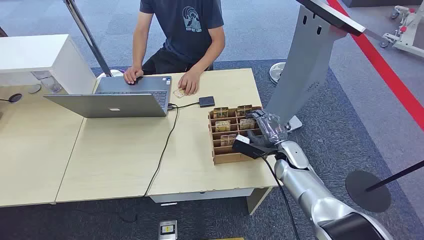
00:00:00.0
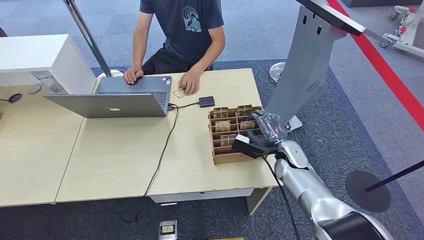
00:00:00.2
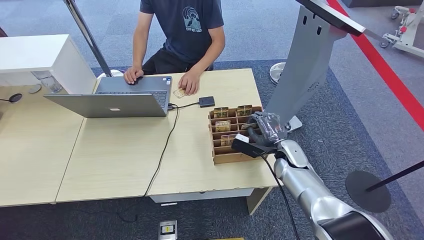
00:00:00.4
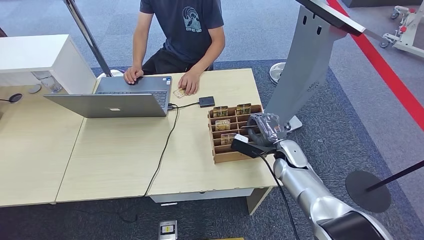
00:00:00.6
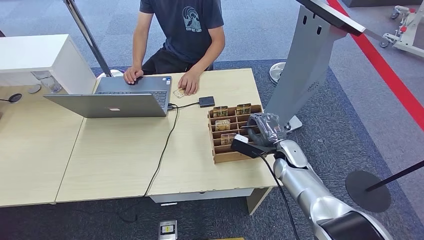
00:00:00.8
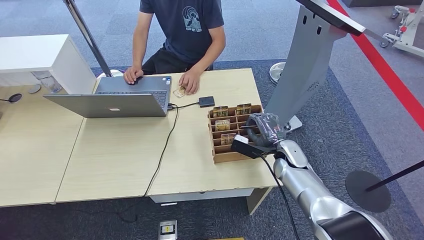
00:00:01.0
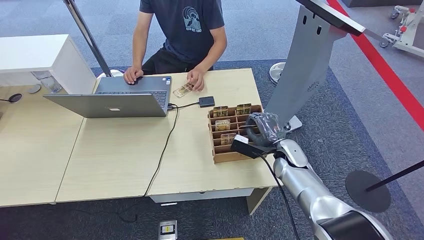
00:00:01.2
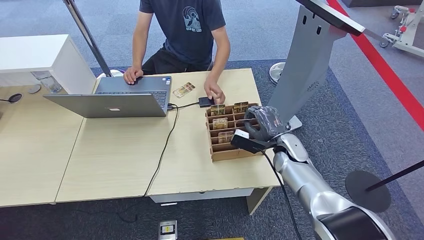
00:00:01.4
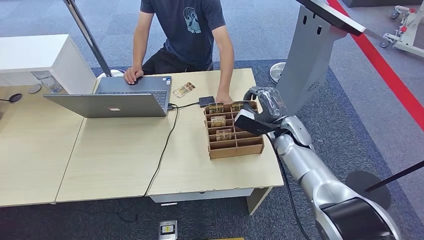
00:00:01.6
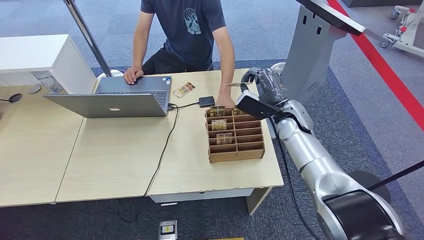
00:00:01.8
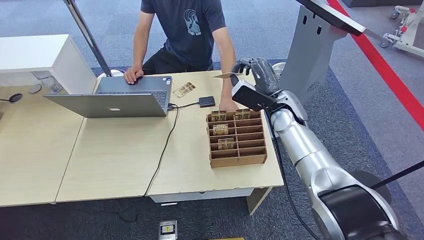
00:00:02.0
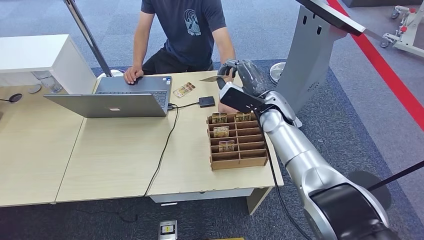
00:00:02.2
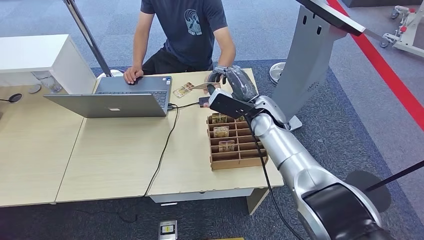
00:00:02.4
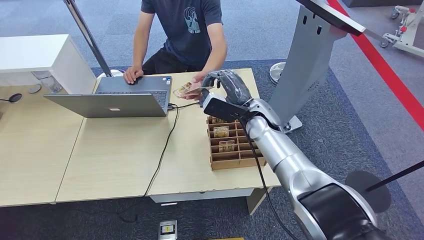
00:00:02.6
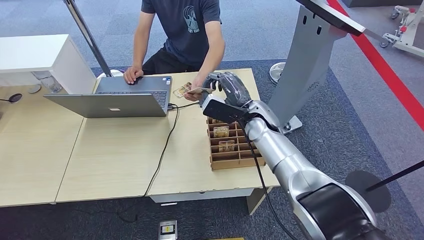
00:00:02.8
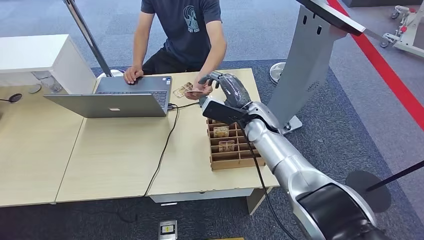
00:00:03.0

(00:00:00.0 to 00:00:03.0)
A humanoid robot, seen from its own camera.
Step, 00:00:00.0 - 00:00:01.6: Pick up the key card from the card box.
Step, 00:00:01.8 - 00:00:02.8: Hand the key card to the target.
00:00:01.6 - 00:00:03.0: The right hand is displaced to the left and upward by roughly 10 cm.

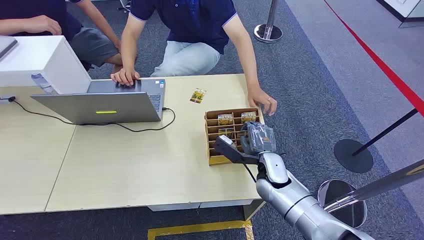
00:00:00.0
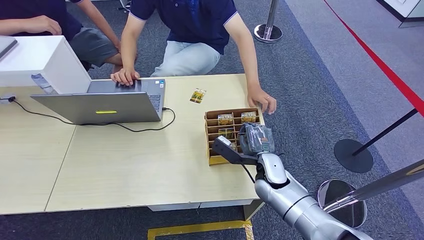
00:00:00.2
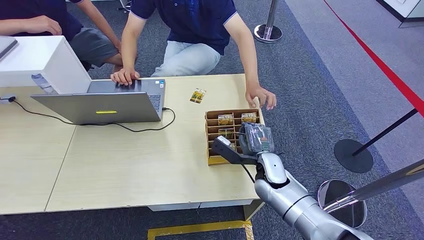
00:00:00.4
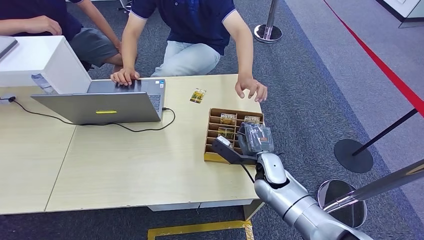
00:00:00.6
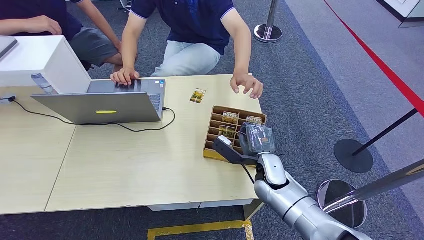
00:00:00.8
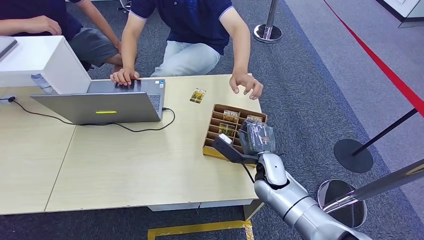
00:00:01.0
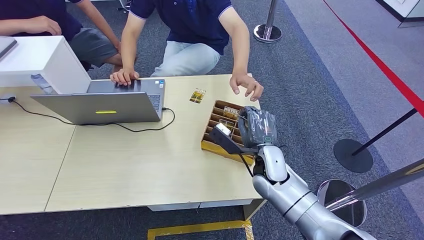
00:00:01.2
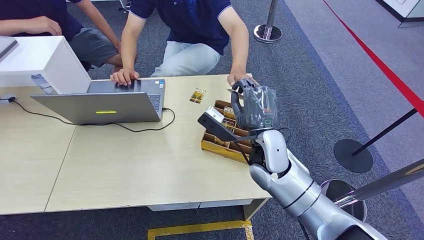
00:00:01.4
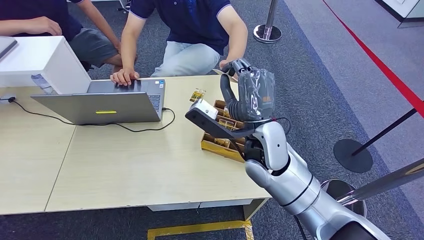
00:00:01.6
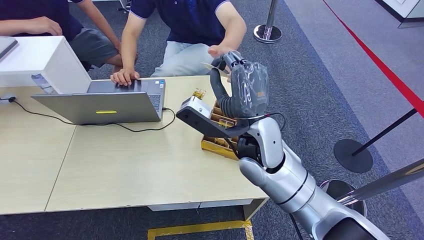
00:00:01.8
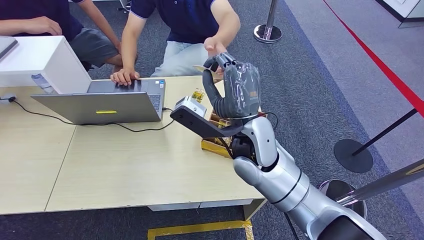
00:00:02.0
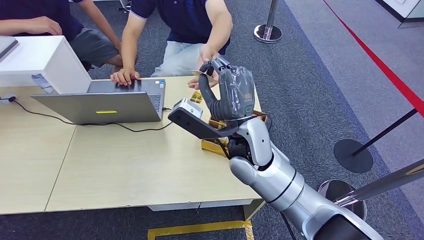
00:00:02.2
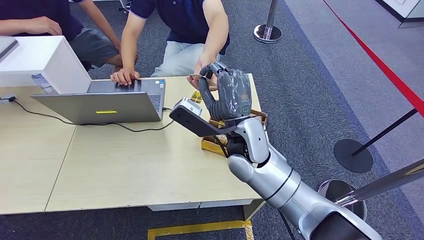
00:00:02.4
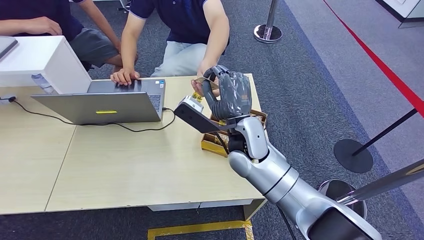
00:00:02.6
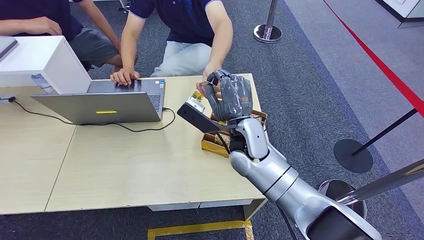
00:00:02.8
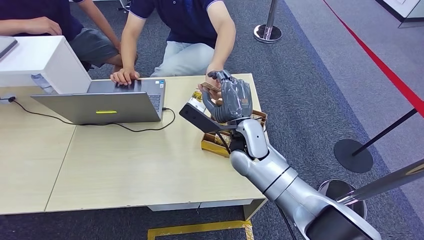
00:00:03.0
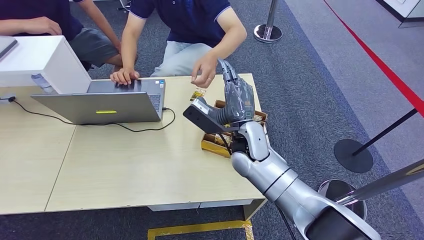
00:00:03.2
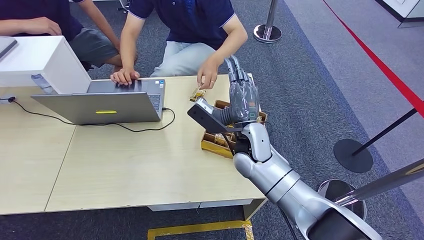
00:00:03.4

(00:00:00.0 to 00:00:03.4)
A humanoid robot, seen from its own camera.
Step, 00:00:00.0 - 00:00:01.4: Pick up the key card from the card box.
Step, 00:00:01.6 - 00:00:03.4: Hand the key card to the target.
00:00:01.6 - 00:00:03.4: The right hand travels downward by about 5 cm.

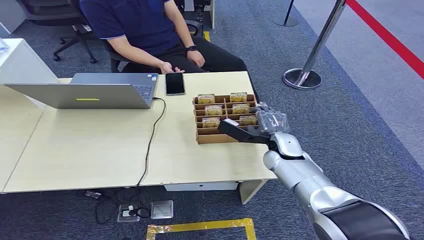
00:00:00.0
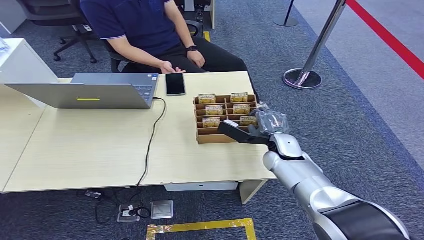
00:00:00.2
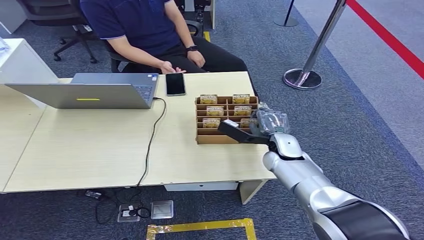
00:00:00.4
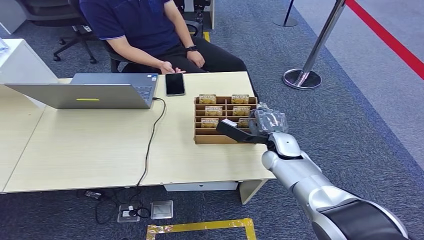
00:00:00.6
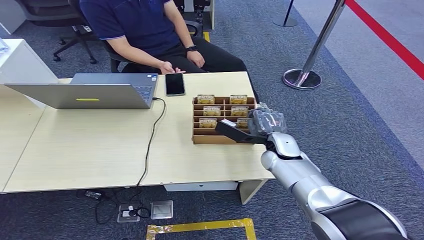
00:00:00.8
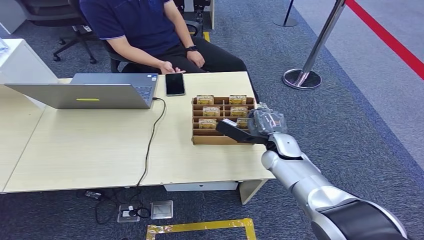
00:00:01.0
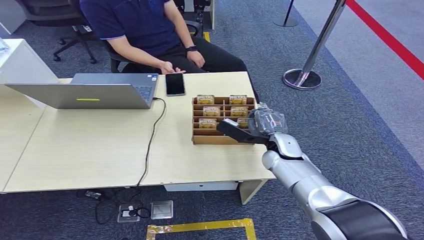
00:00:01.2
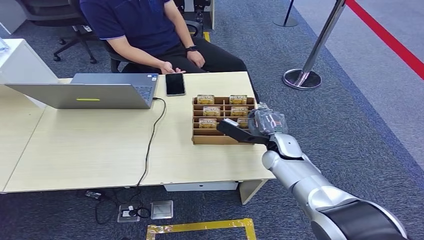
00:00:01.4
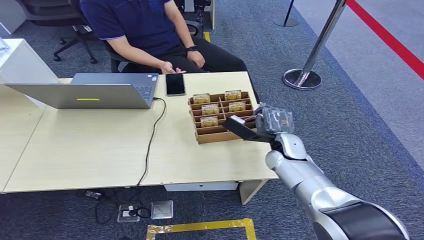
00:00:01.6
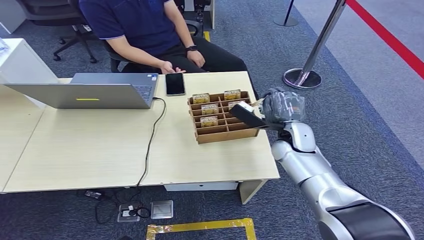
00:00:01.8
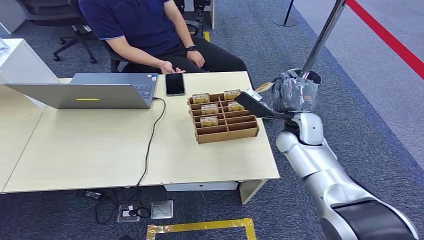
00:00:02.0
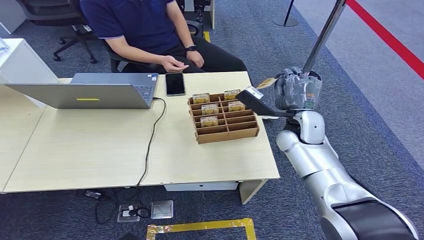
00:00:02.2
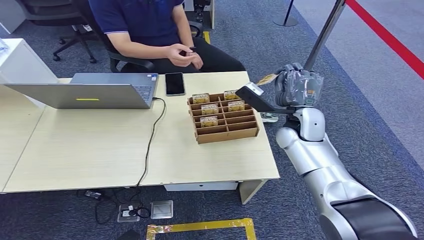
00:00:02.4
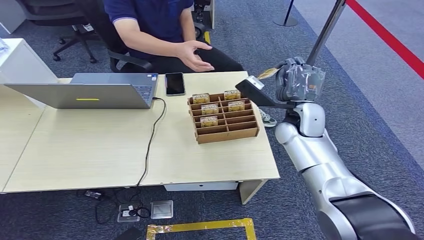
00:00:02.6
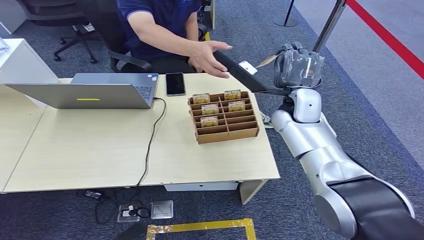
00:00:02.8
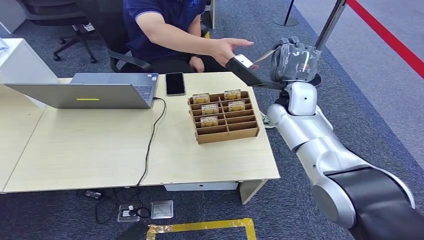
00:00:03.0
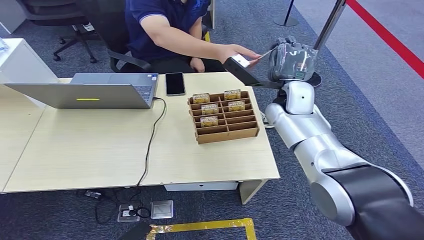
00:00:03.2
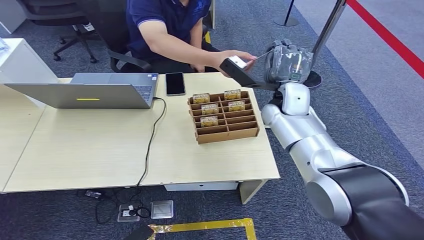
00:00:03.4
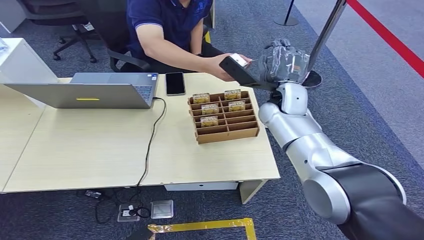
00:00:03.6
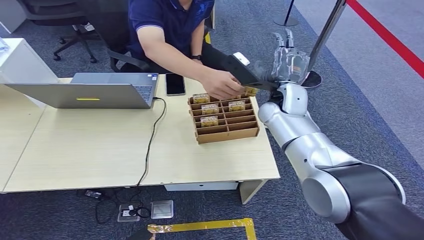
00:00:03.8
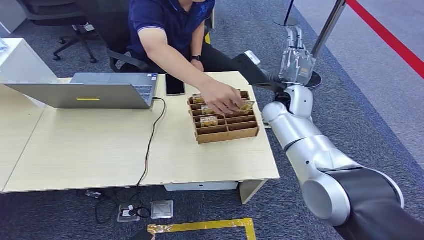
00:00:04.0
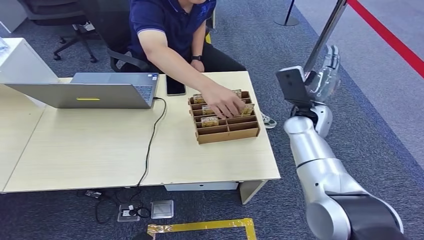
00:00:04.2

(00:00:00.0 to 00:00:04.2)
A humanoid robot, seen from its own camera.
Step, 00:00:00.0 - 00:00:02.0: Pick up the key card from the card box.
Step, 00:00:02.2 - 00:00:04.2: Hand the key card to the target.
